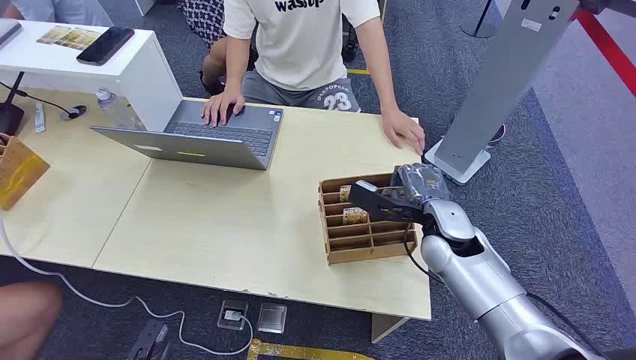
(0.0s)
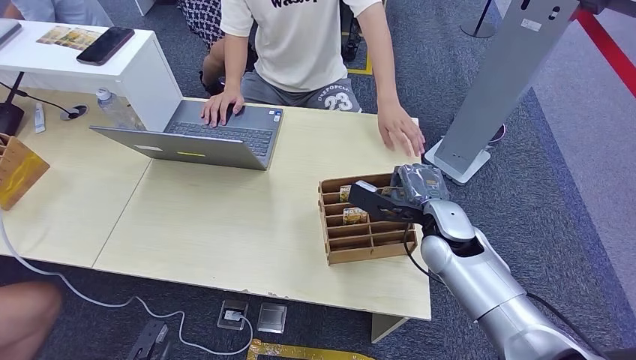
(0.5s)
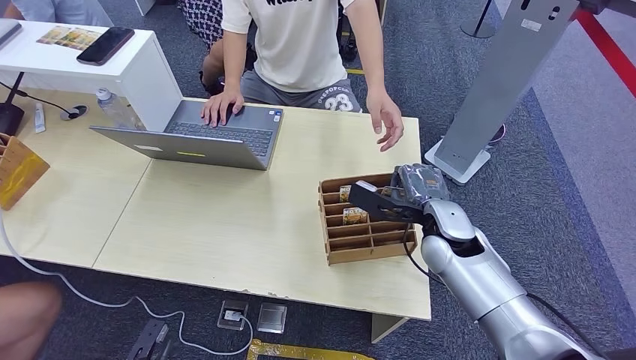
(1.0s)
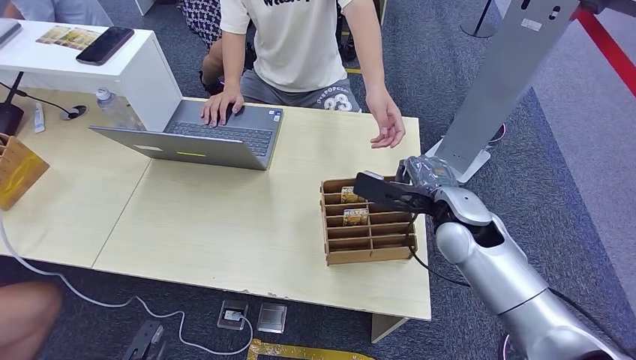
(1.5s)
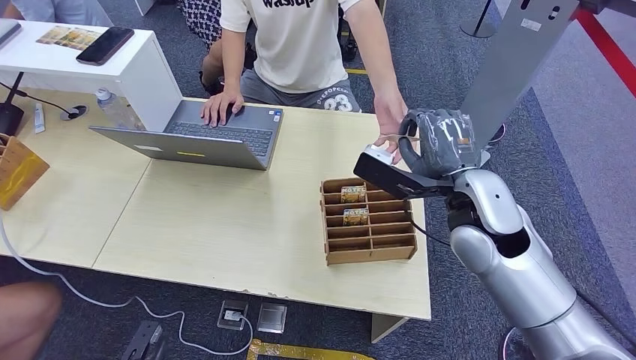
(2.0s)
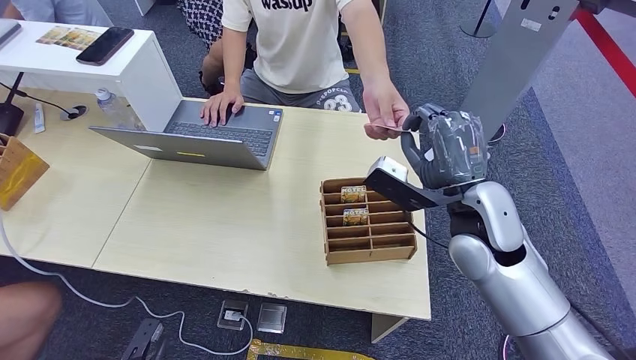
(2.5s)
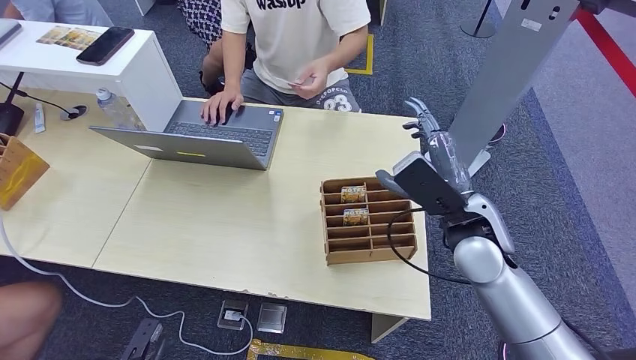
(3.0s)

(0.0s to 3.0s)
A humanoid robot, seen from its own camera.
Step, 0.0s - 1.5s: Pick up the room card from the card holder.
Step, 2.0s - 3.0s: Hand the room card to the target.
